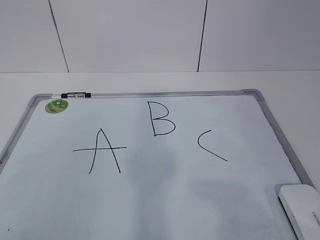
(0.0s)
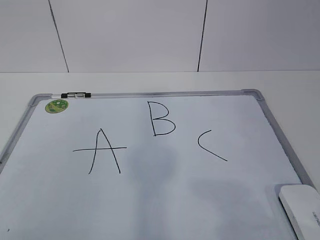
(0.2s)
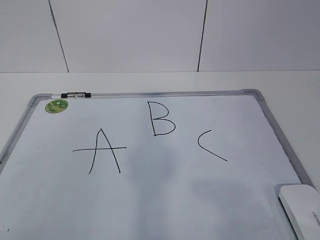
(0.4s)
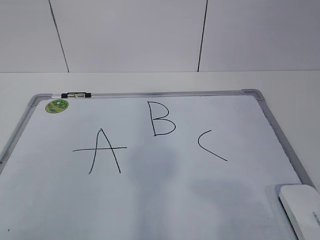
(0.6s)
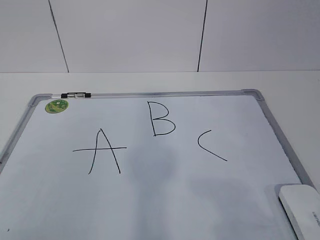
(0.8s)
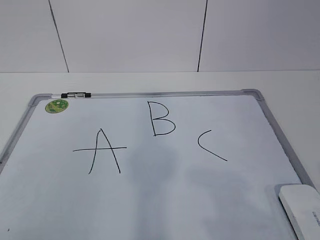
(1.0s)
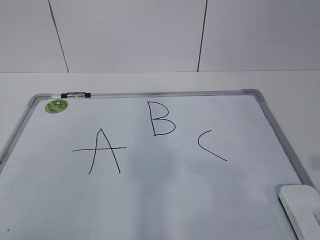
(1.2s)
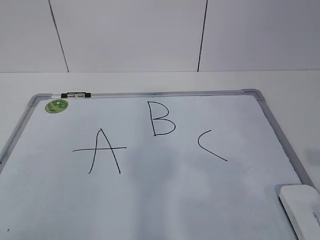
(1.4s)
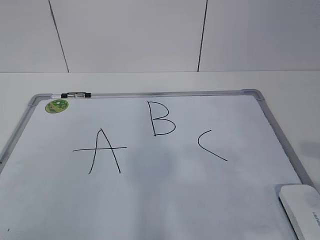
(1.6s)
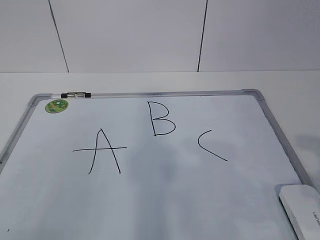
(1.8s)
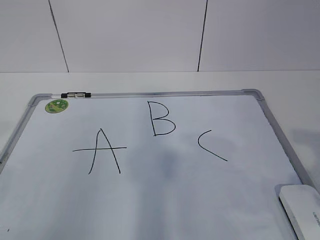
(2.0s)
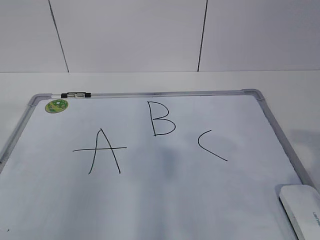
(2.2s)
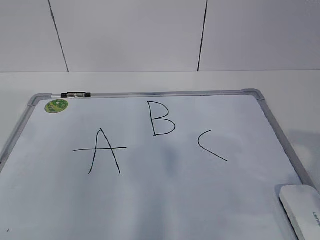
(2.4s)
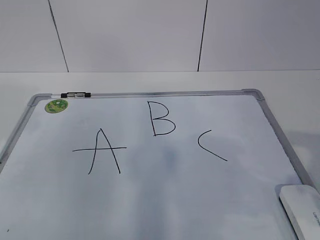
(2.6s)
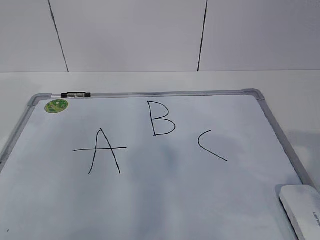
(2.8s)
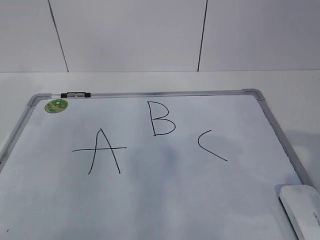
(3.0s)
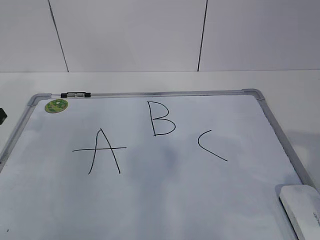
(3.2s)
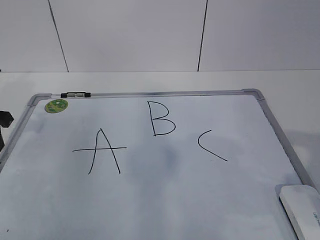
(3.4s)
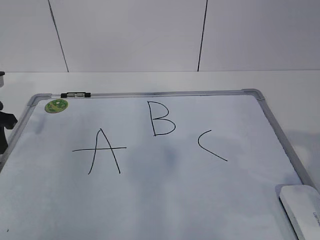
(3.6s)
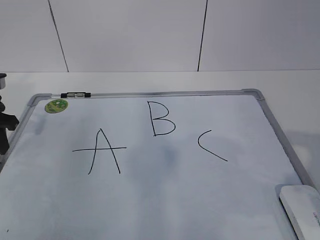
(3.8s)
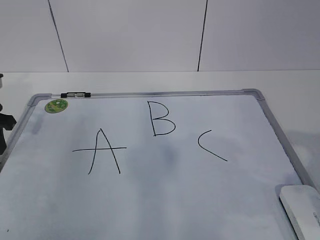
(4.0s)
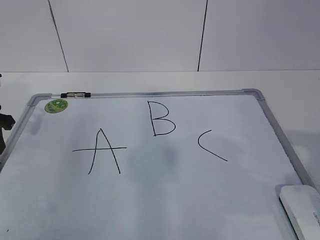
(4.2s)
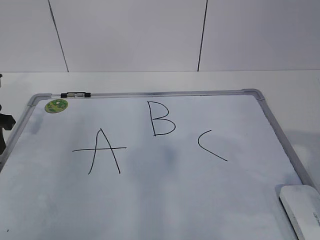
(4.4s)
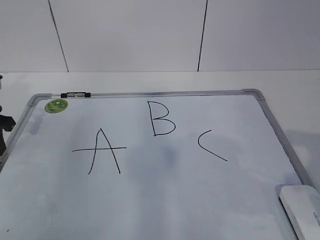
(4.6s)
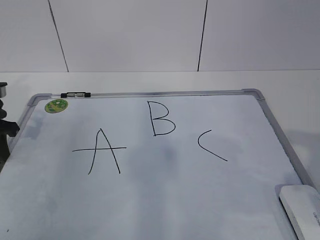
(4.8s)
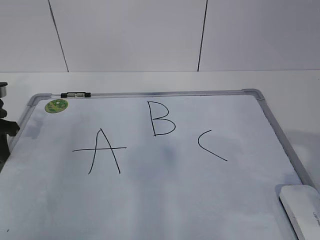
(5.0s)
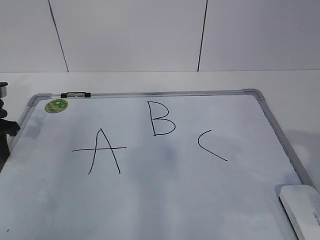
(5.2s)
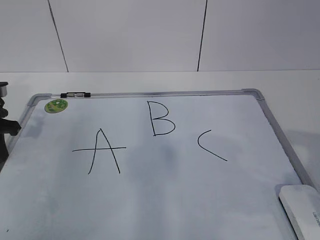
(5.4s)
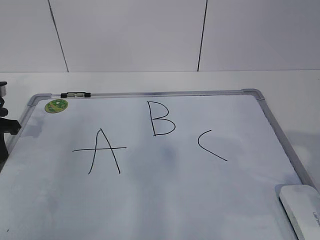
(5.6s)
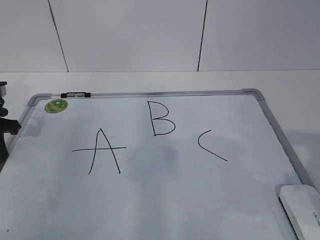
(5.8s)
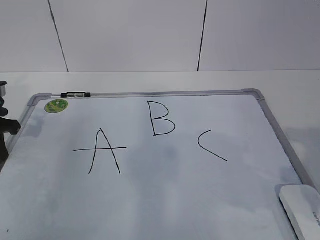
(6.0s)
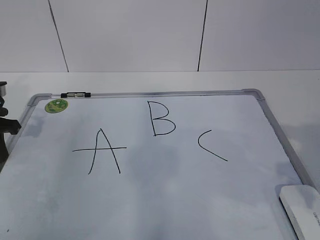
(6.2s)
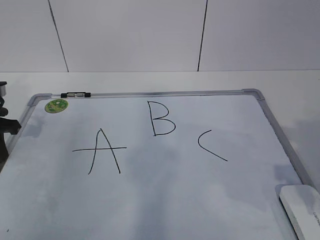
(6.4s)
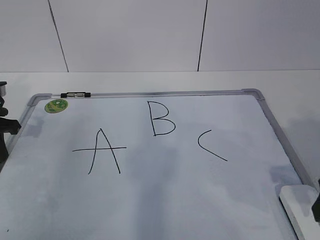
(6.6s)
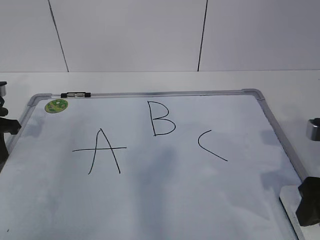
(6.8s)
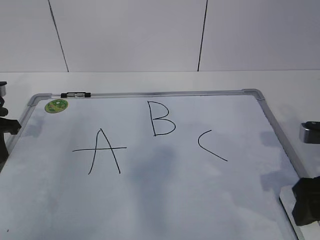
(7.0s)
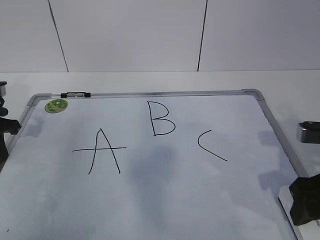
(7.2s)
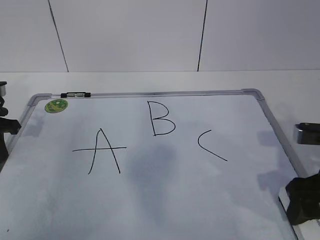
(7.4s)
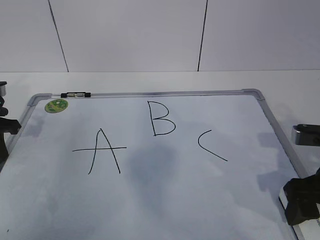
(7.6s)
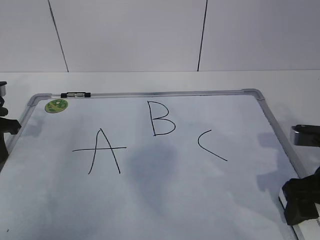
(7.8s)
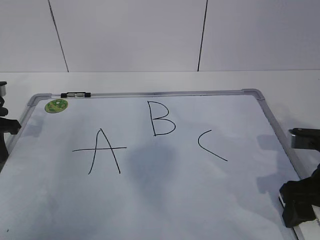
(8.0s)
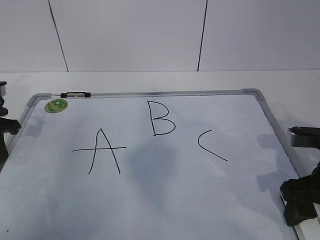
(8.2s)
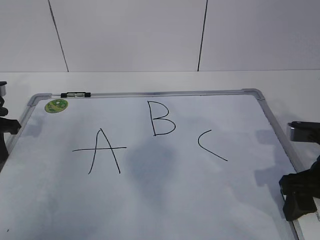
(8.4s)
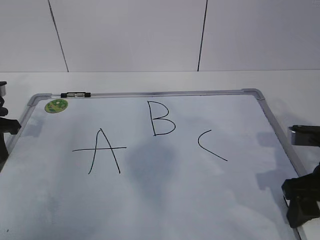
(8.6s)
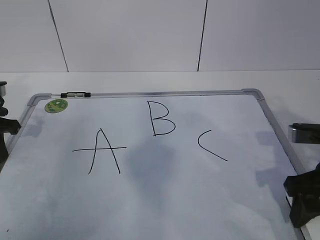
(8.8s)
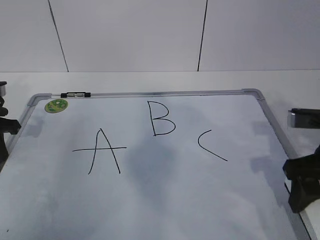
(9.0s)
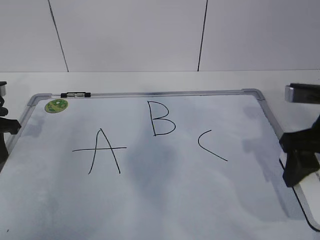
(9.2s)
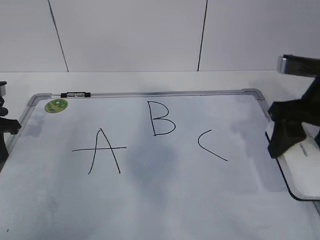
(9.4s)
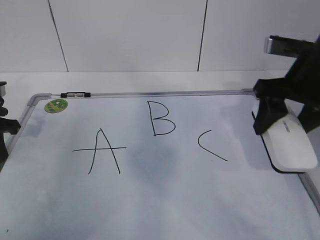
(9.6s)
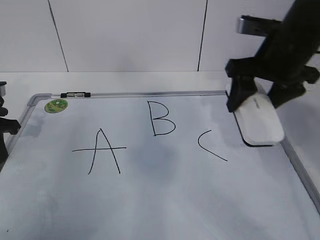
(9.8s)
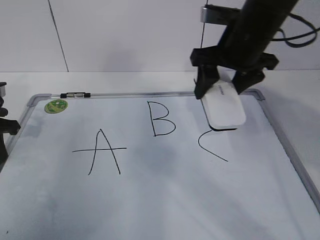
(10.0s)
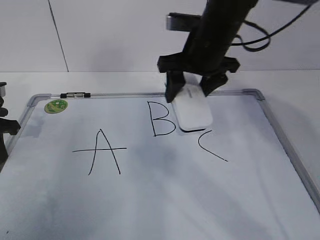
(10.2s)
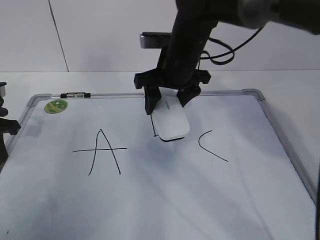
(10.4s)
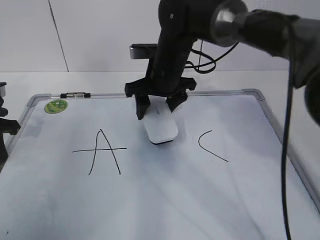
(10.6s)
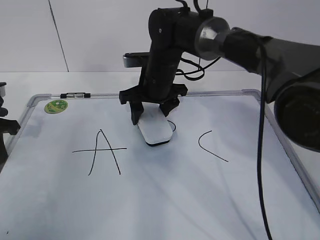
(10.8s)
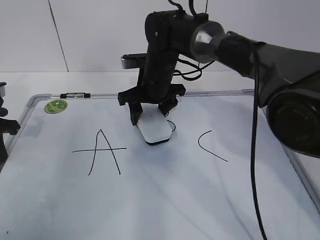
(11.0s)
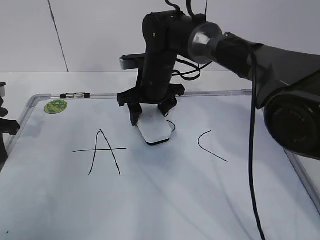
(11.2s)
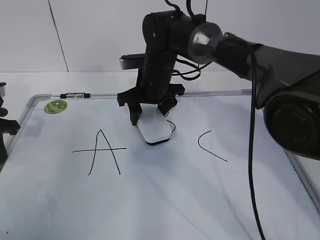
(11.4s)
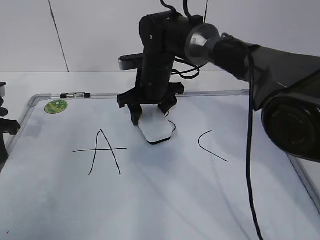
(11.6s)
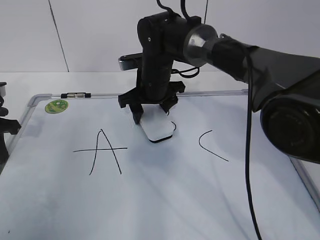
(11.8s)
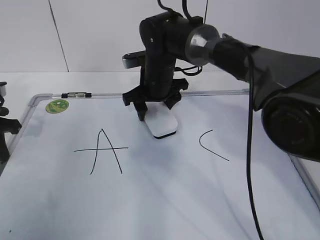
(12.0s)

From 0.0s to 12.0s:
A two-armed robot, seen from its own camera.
Task of the whole recording: pick up the eraser on the blackboard and erase the letter "B".
From 3.0s to 4.4s: The left gripper shifts some 5 cm downward.
From 4.4s to 6.0s: The left gripper closes its fingers.
From 6.0s to 7.6s: The right gripper goes approximately 10 cm downward and forward.
From 7.6s to 9.0s: The grippers make only small movements.
From 9.0s to 10.4s: The right gripper moves to the left and forward, approximately 25 cm.
From 10.4s to 12.0s: The right gripper is displaced downward and forward by roughly 10 cm.

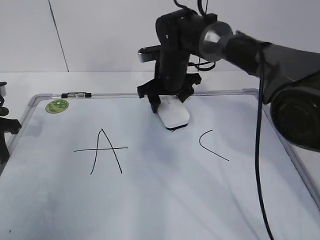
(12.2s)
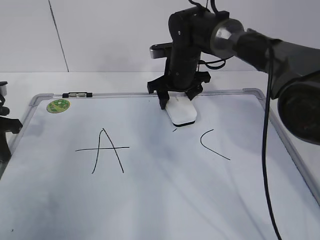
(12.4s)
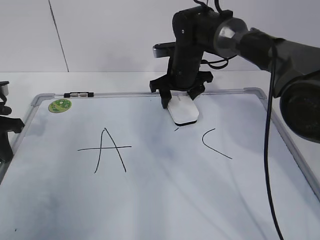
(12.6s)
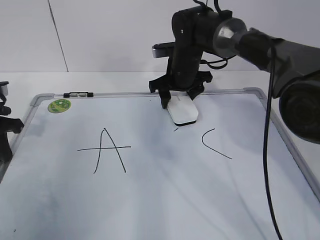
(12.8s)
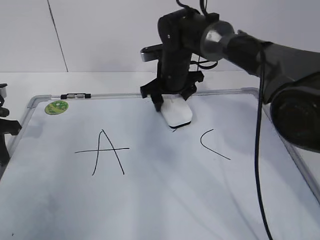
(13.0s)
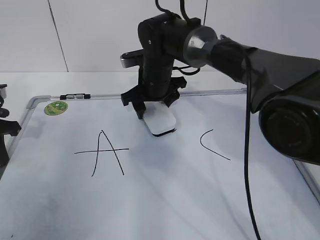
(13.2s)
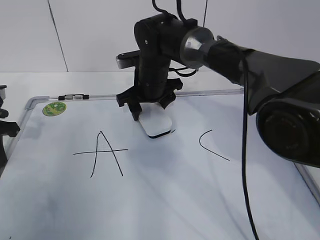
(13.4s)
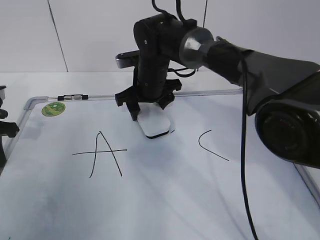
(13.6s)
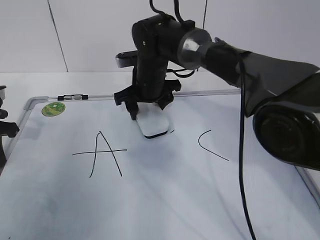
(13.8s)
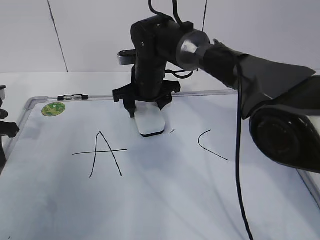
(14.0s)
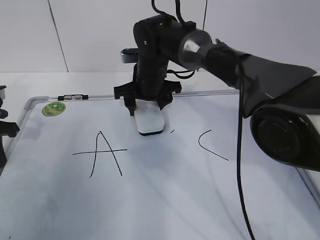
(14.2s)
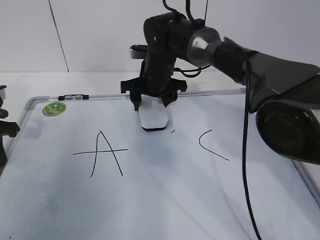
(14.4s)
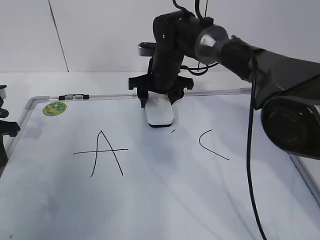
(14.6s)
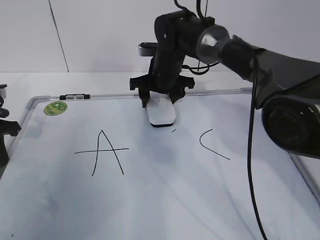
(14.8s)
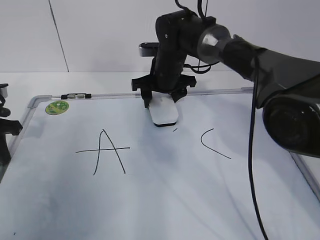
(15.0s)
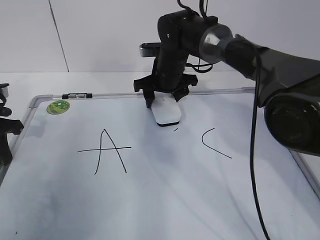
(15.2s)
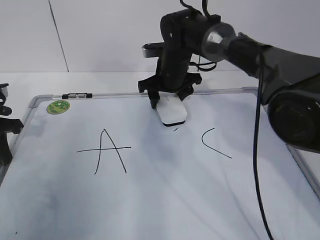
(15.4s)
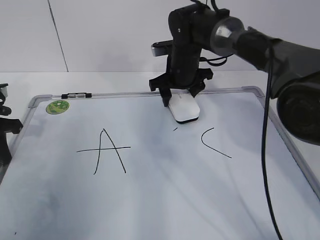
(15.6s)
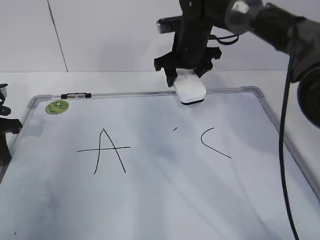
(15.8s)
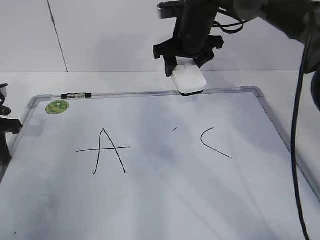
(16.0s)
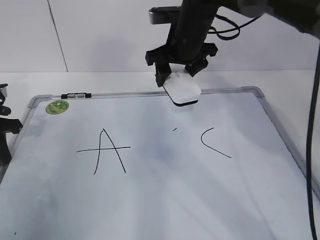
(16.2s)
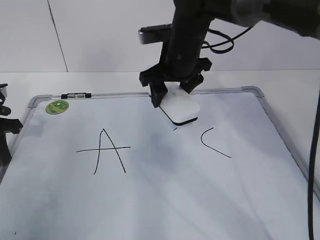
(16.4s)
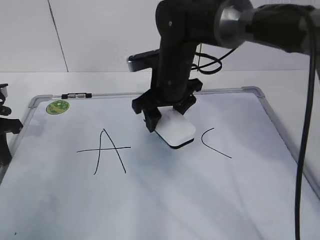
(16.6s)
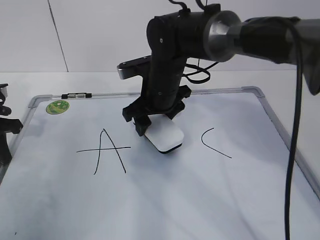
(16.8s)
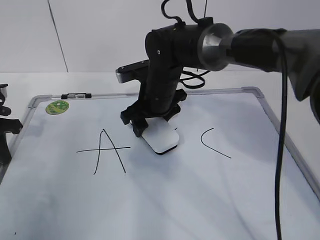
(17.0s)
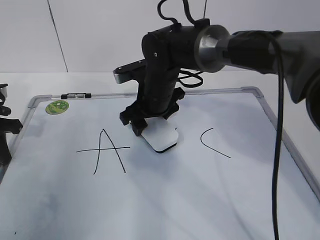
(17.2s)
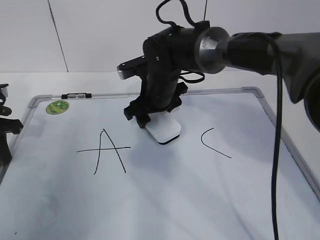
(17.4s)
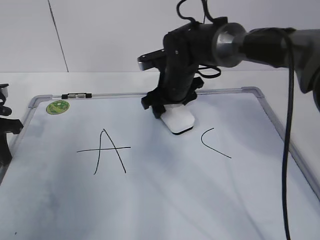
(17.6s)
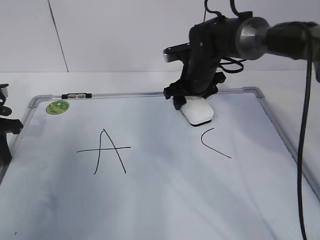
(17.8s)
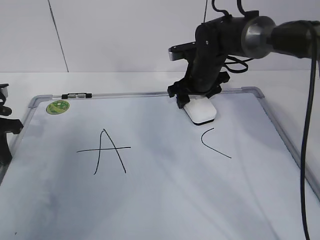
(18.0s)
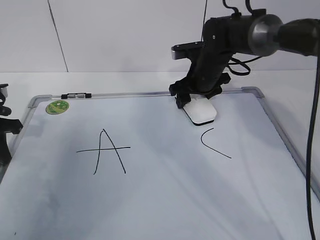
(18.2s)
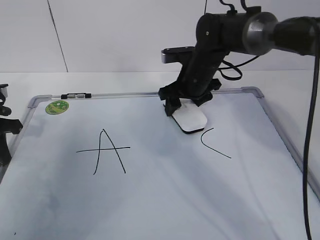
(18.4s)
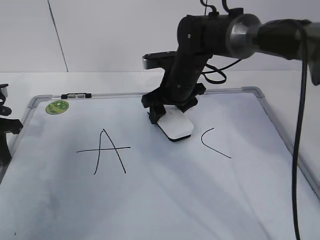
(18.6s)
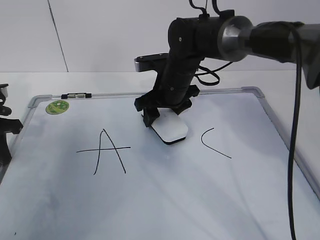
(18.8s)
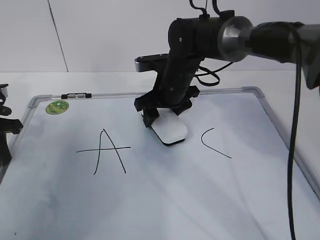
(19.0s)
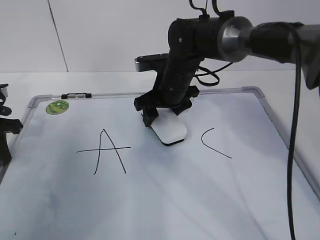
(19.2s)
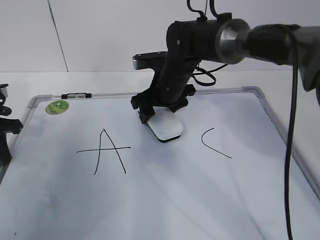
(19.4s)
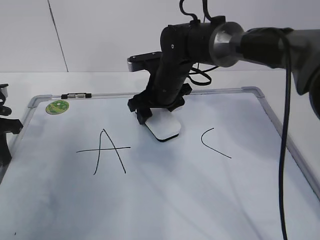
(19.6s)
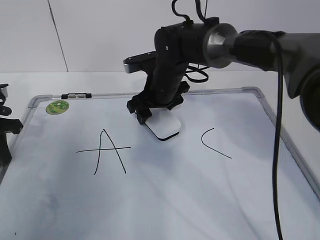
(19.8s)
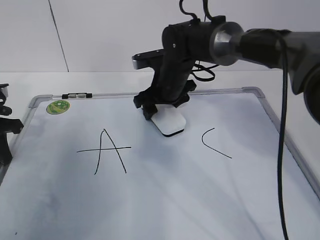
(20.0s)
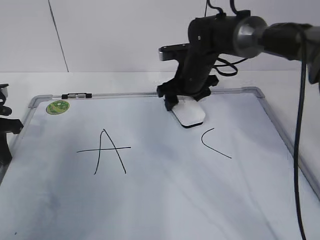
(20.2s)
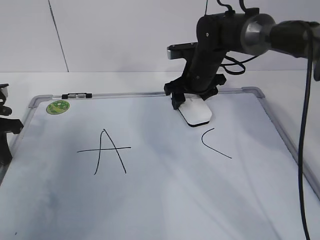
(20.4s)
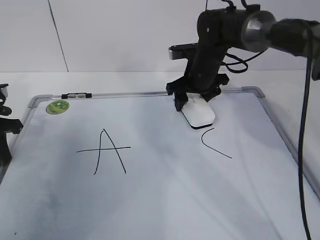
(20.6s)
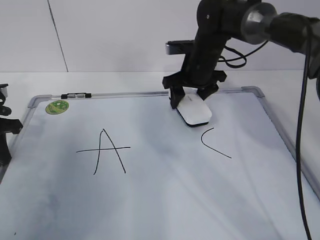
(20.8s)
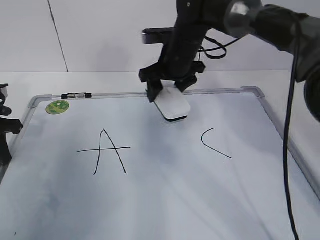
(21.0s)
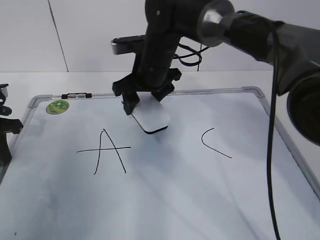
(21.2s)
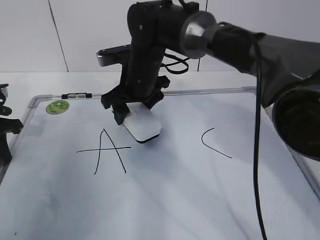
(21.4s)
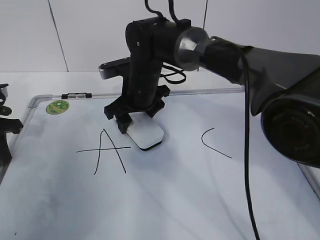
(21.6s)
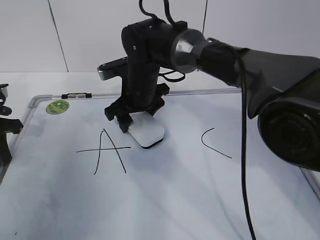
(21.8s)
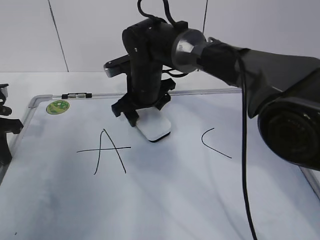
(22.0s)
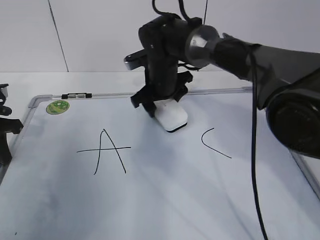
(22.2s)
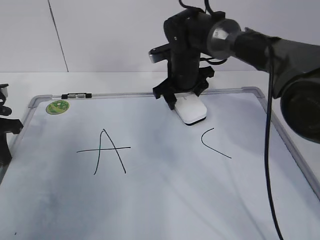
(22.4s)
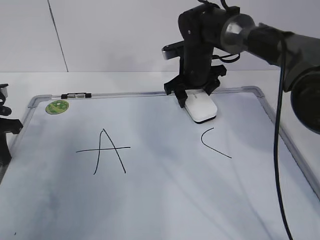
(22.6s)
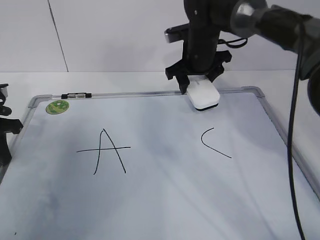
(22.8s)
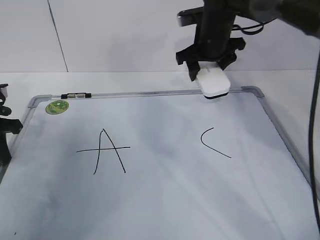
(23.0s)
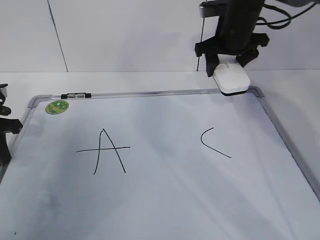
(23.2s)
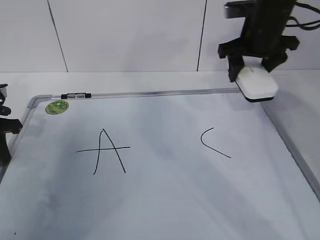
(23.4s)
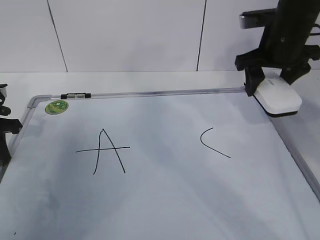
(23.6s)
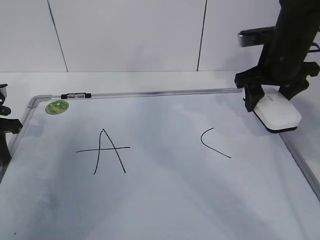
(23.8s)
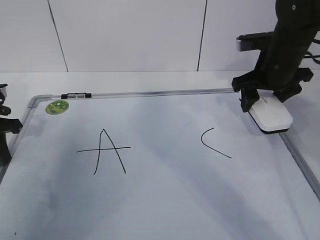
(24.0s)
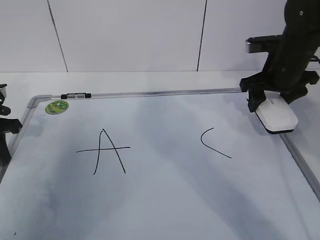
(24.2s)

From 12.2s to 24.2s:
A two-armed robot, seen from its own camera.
Task of the whole recording: pick up the eraser on the blackboard and erase the letter "B".
Step, from 12.2s to 18.6s: Erase the letter B with your right hand.
Step, from 18.8s to 23.4s: Put down the eraser with your right hand.
From 12.2s to 13.8s: The right gripper heads to the left, covering some 5 cm.
From 13.8s to 15.2s: The right gripper shifts about 5 cm to the right.
From 15.2s to 16.6s: The right gripper moves backward, about 10 cm.
From 16.6s to 18.2s: The right gripper moves to the right and forward, some 10 cm.
From 18.2s to 19.8s: The right gripper goes some 10 cm to the left.
From 19.8s to 21.2s: The right gripper shifts some 5 cm upward, and reaches approximately 10 cm to the right, then returns.
From 21.2s to 22.6s: The right gripper travels to the right by about 10 cm.
From 22.6s to 24.2s: The right gripper shifts roughly 15 cm to the right and backward.
